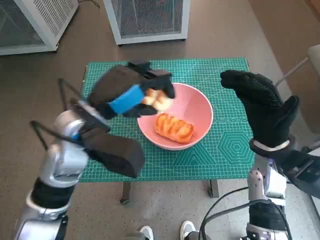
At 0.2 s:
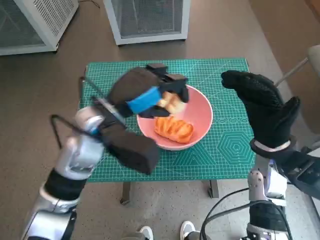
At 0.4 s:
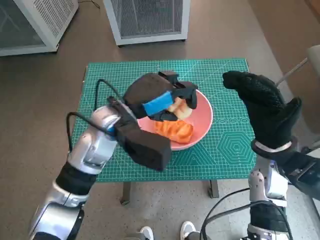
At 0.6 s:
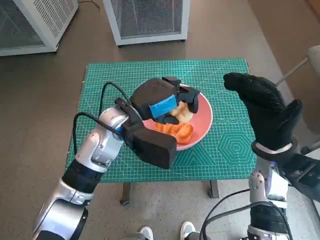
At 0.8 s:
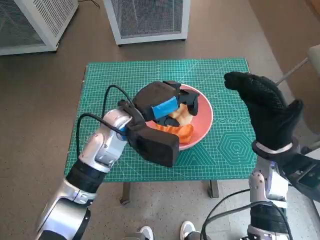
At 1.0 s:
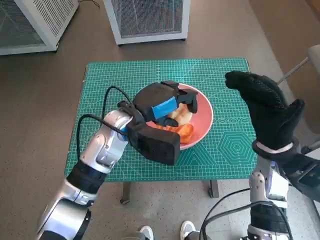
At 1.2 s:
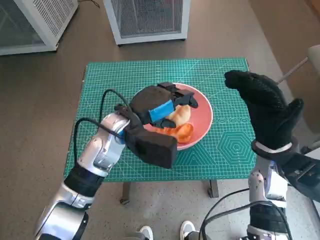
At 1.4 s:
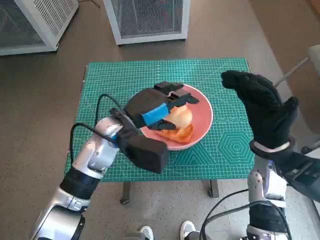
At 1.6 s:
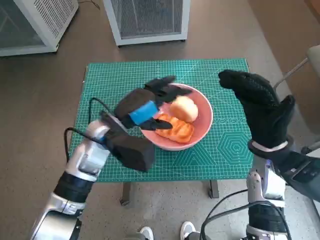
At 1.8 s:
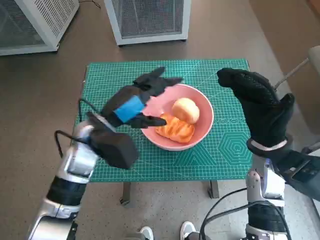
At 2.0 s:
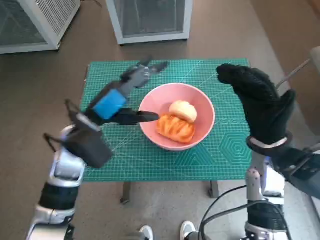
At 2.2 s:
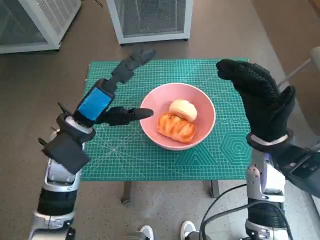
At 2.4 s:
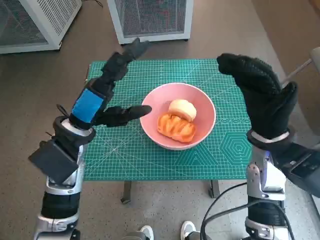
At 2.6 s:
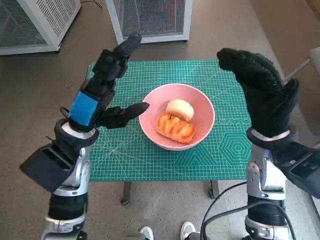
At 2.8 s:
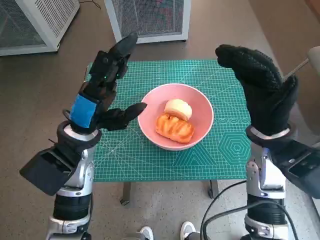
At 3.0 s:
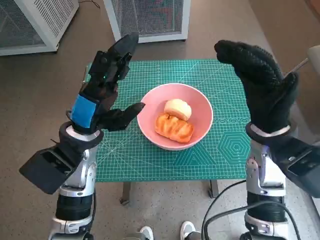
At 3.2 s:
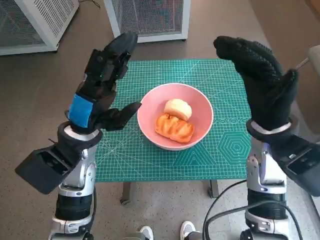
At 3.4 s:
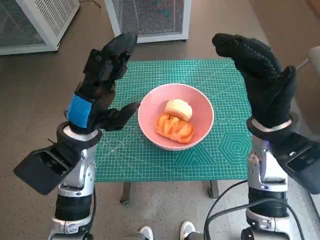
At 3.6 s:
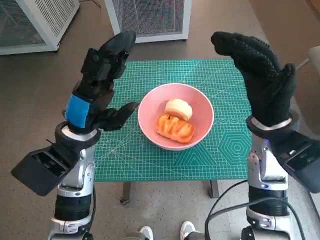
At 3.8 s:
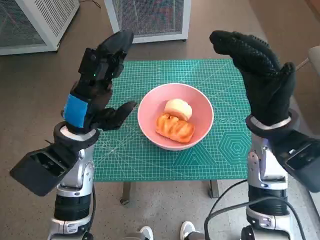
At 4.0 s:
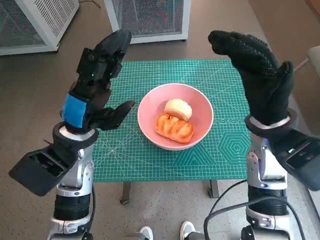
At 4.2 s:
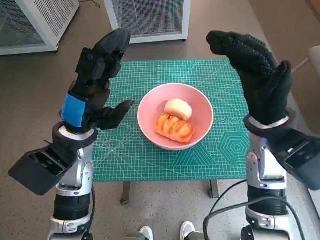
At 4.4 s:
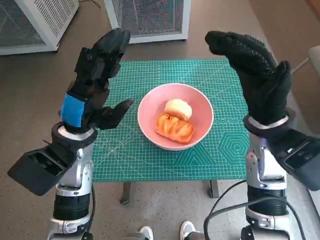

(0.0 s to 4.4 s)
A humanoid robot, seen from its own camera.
Task of the whole recording: Push the bowl into the center of the table and put the bread into the bowl.
0.0 s - 1.4 s: The left hand heads downward, covering roughly 5 cm.
1.4 s - 3.0 s: The left hand moves to the left, about 5 cm.
3.0 s - 4.4 s: There are only small adjustments of the hands.

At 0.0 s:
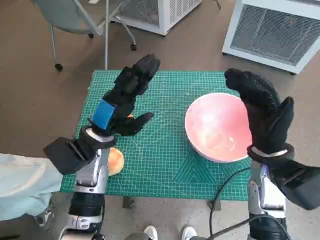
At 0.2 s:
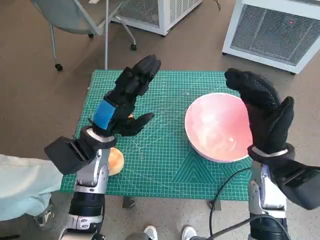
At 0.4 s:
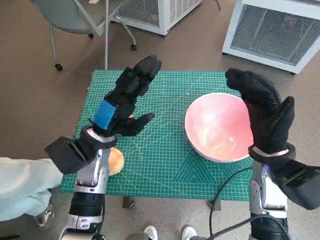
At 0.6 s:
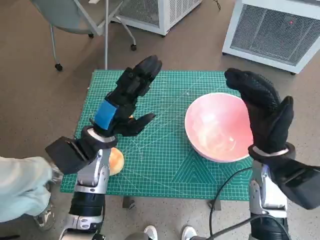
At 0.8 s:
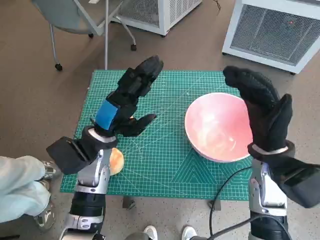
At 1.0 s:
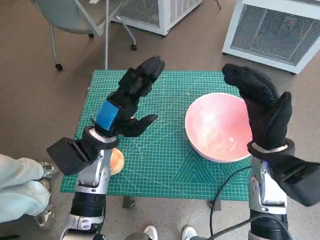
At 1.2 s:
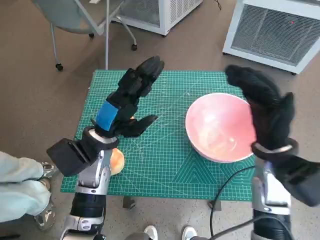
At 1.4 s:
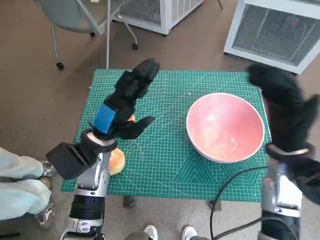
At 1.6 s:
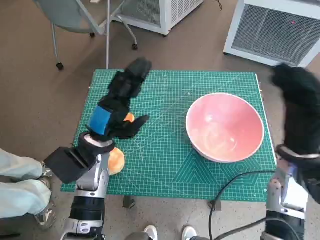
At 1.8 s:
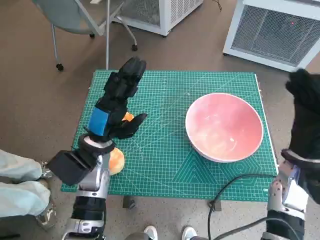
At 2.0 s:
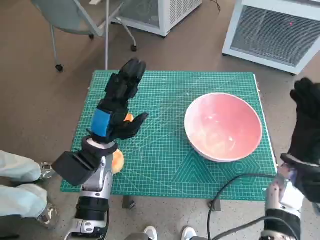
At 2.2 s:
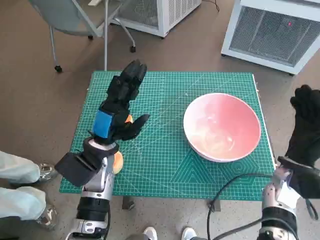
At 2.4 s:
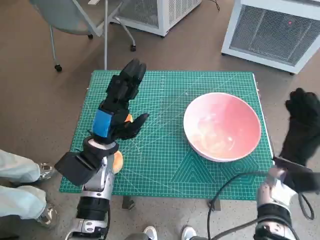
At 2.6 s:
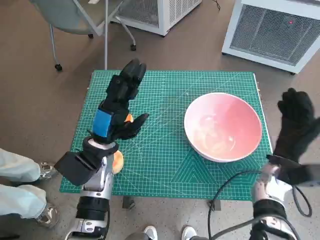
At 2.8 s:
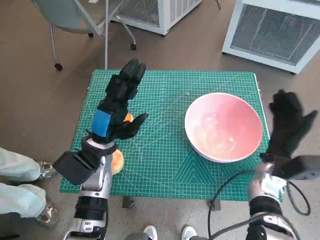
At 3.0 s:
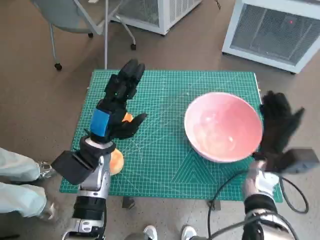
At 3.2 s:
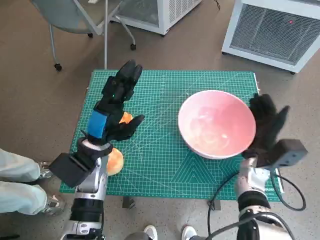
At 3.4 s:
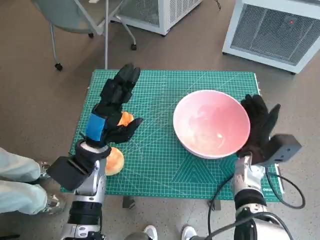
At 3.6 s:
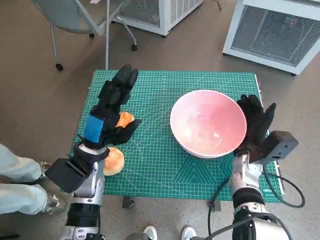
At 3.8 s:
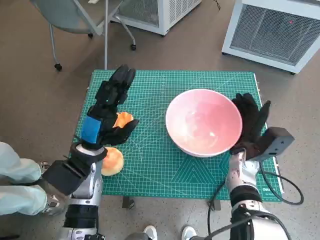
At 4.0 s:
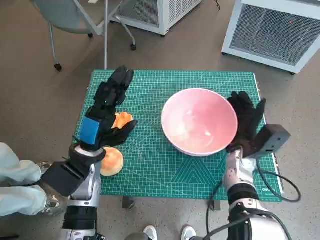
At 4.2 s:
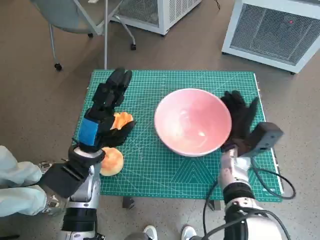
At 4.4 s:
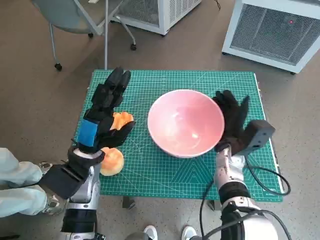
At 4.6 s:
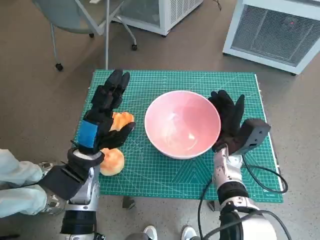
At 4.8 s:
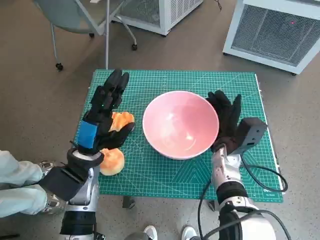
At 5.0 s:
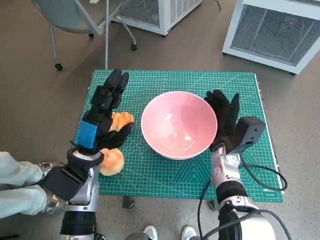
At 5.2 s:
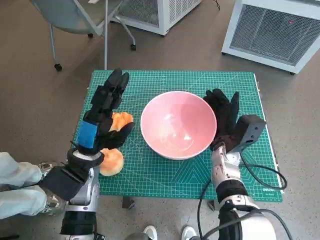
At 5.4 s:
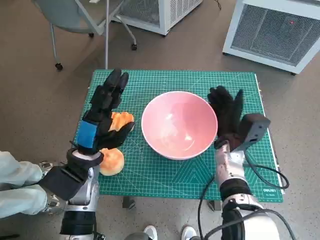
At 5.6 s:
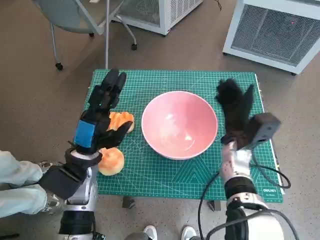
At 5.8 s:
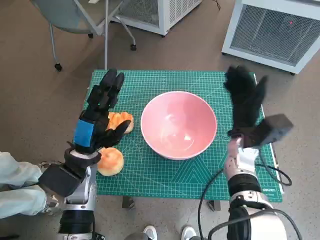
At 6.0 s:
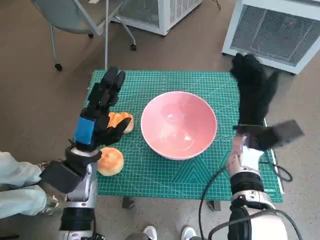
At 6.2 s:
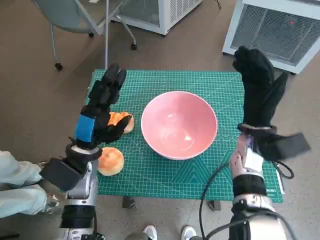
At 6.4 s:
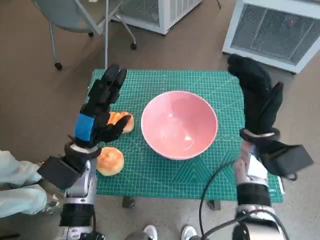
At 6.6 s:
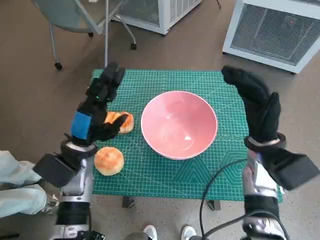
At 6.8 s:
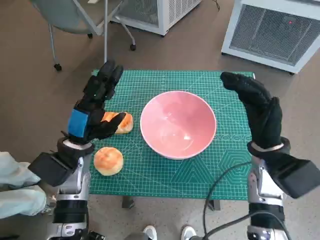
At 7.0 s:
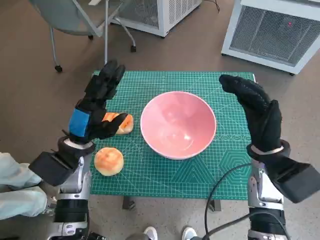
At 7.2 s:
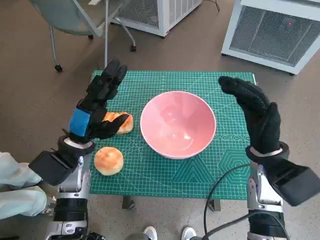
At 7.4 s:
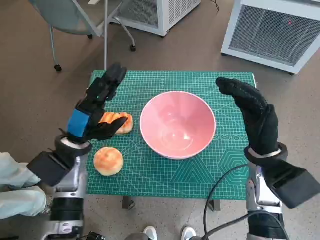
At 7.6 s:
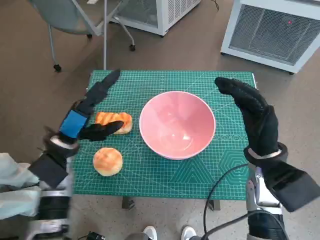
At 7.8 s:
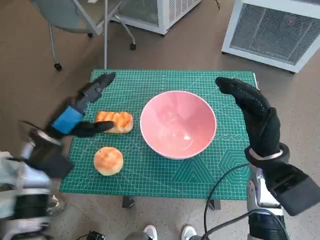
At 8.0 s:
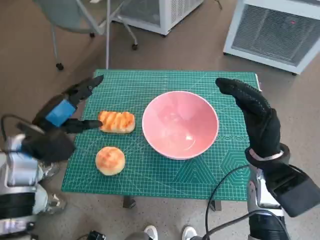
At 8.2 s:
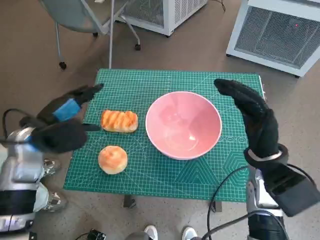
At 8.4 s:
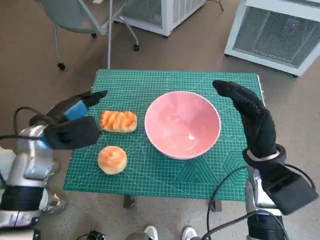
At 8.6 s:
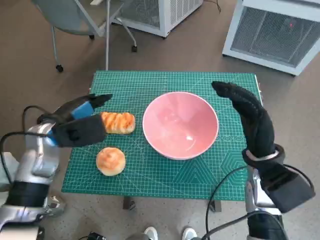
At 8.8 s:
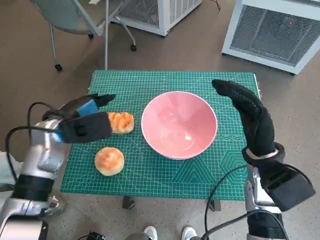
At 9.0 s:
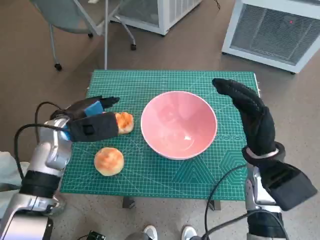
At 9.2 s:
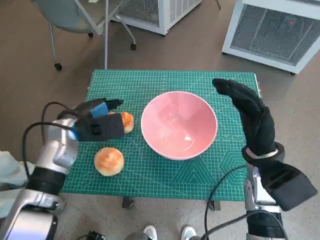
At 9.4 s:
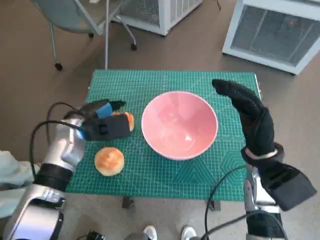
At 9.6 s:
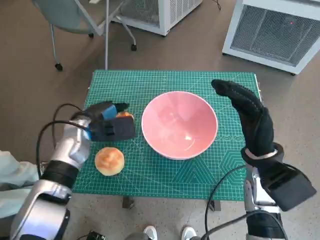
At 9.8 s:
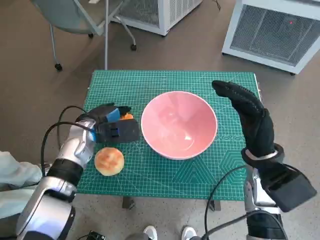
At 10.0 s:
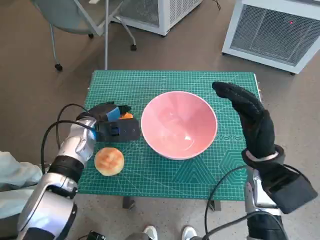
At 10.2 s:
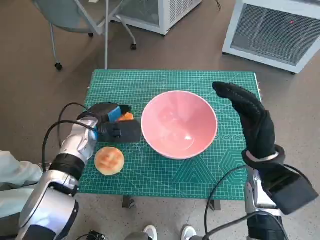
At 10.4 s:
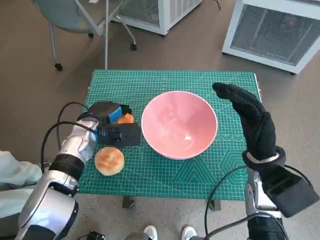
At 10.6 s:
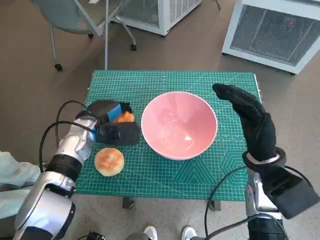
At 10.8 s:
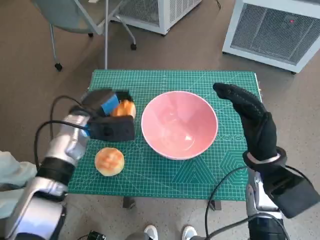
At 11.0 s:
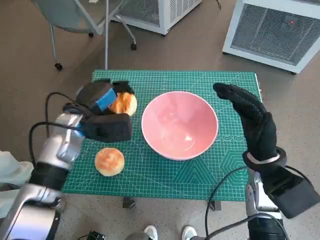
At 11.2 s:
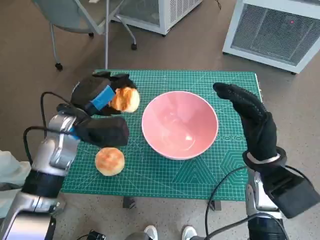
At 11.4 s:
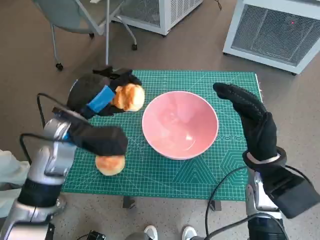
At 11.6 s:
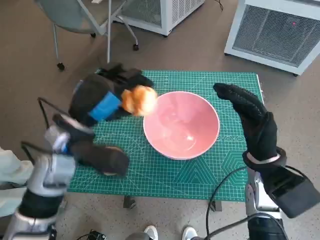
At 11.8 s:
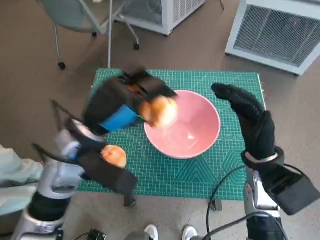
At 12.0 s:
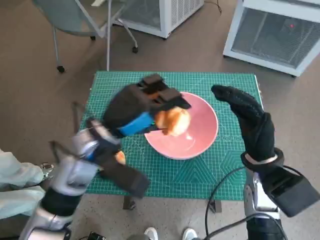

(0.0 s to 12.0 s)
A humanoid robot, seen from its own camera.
Task of the whole recording: Push the bowl into the center of the table and put the bread into the bowl.
Step, 0.0 s - 5.4 s: Move the pink bowl to the center of table with right hand.
Step, 5.6 s - 10.2 s: Grasp the long bread with left hand.
1.6 s - 3.0 s: The right hand shifts some 10 cm downward.
3.0 s - 4.4 s: The right hand moves to the left, approximately 5 cm.
4.4 s - 6.0 s: The right hand moves upward, roughly 5 cm.
6.0 s - 7.6 s: The right hand goes approximately 5 cm backward.
9.0 s - 10.4 s: The left hand goes about 5 cm downward.
10.4 s - 12.0 s: The left hand shifts about 15 cm upward, backward and to the right.

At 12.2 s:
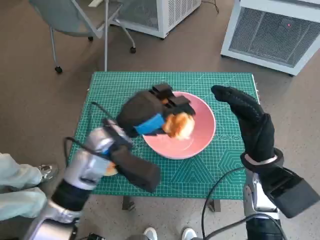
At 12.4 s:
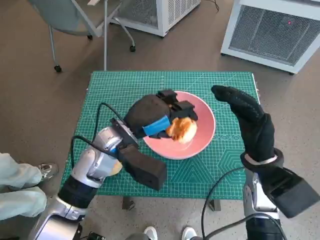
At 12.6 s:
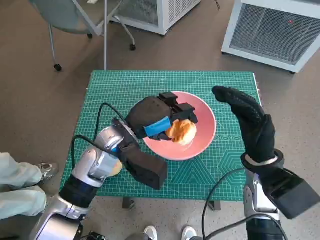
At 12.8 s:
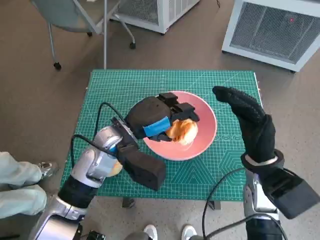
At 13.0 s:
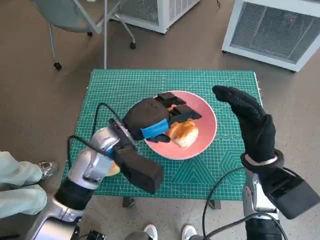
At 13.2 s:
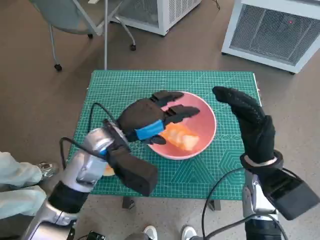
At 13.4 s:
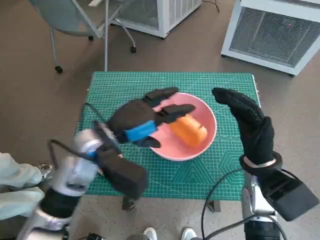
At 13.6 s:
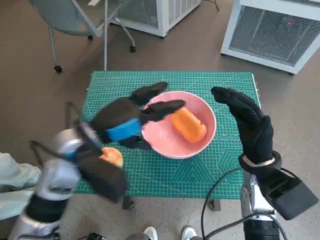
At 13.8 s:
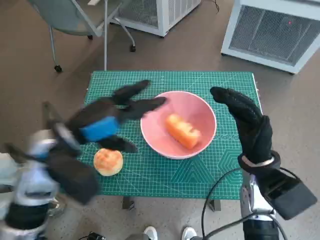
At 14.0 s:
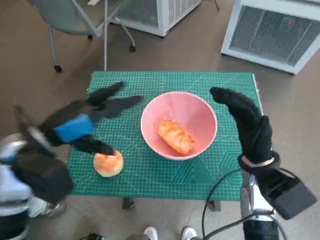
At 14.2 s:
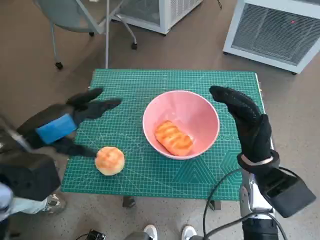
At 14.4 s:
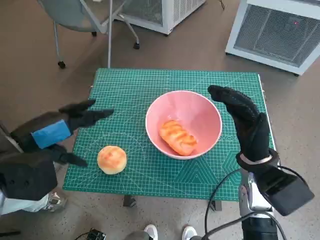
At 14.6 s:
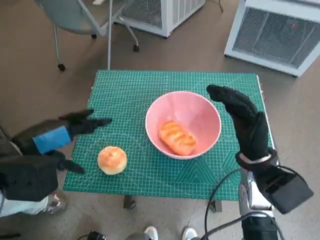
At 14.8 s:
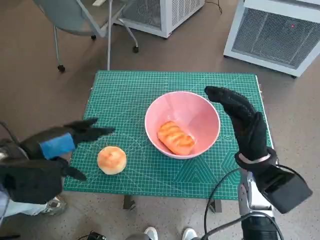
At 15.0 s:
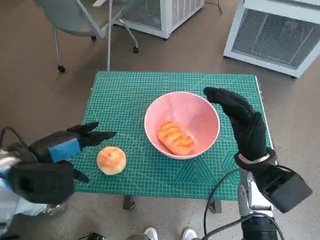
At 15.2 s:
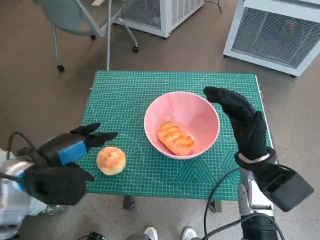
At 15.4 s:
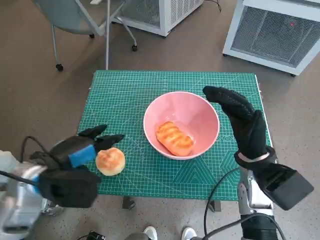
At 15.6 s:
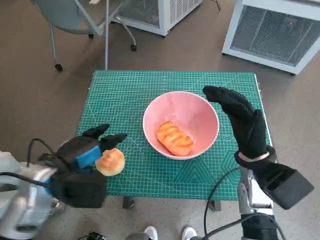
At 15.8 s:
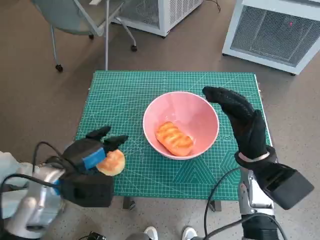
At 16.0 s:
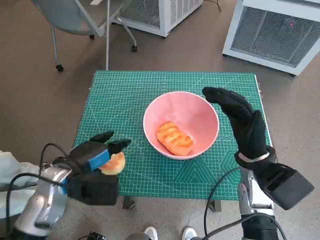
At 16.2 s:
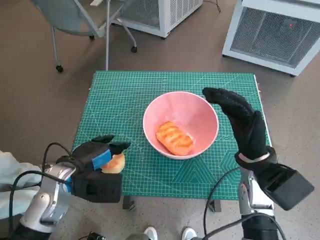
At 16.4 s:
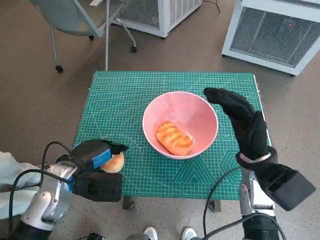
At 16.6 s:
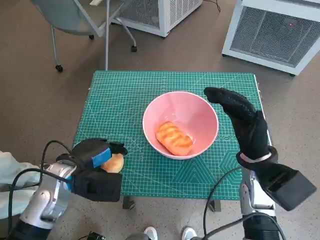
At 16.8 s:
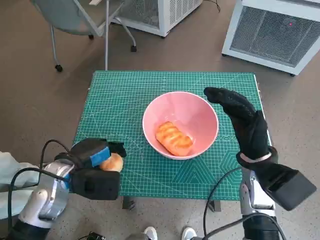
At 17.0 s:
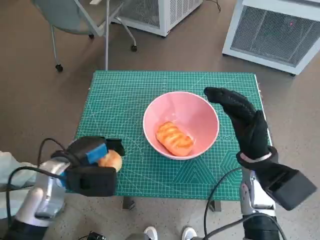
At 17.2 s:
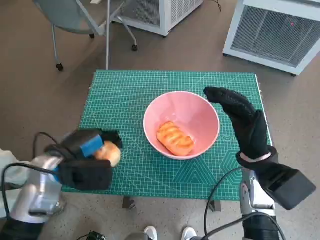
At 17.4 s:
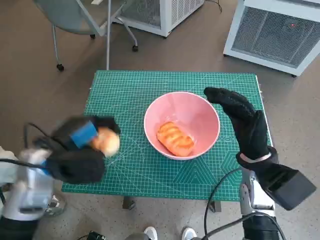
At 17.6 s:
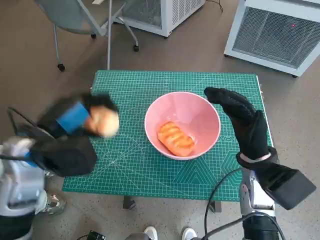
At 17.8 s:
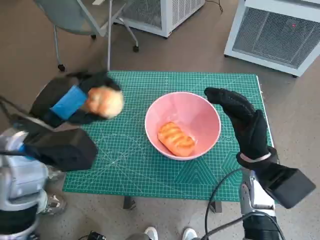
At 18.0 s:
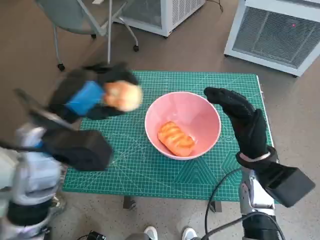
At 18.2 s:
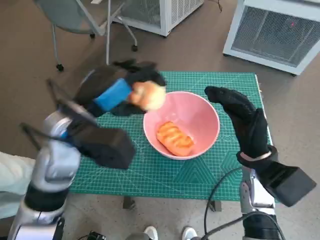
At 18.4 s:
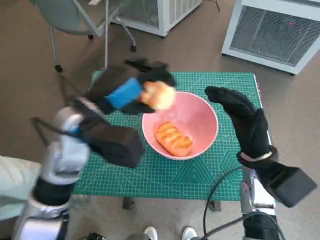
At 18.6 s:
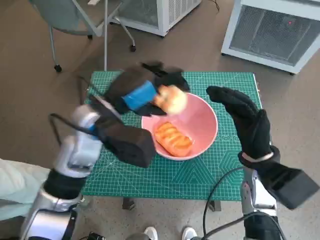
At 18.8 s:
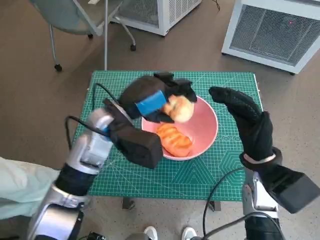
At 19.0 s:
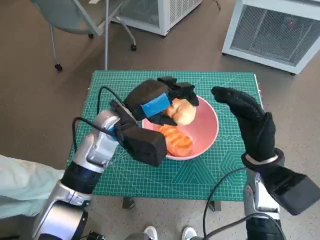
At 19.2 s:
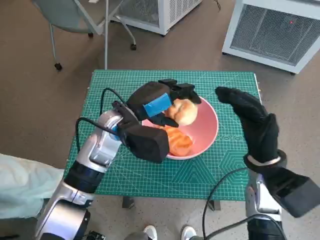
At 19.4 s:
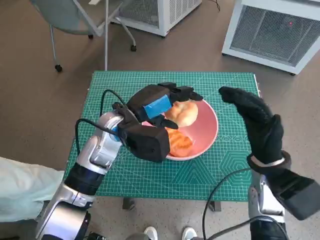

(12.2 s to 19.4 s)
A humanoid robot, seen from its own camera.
Task of the whole recording: Push the bowl into the center of the table and put the bread into the bowl.
Step, 13.2 s - 16.6 s: Grasp the round bread with left hand.
13.6 s - 15.0 s: The left hand goes roughly 10 cm to the left.
15.0 s - 16.6 s: The left hand travels downward by approximately 10 cm.
16.6 s - 18.0 s: The left hand shifts about 15 cm upward.
18.0 s - 19.4 s: The left hand is displaced to the right, forward and downward by some 10 cm.
